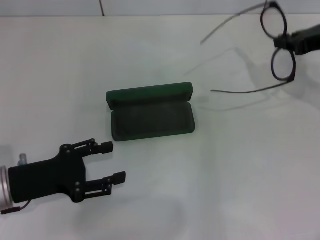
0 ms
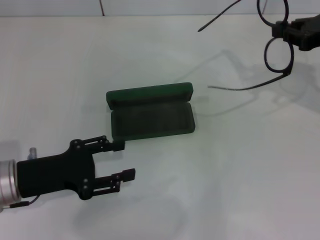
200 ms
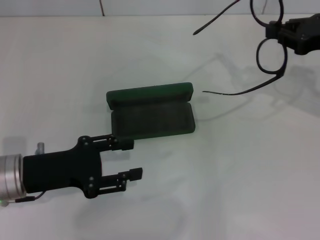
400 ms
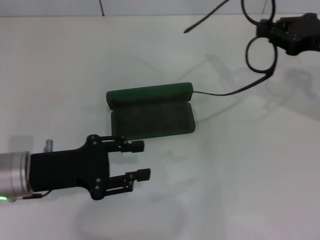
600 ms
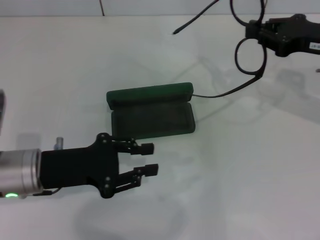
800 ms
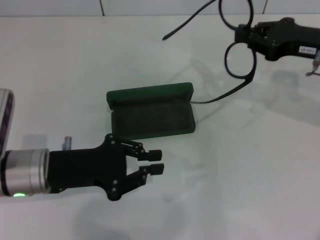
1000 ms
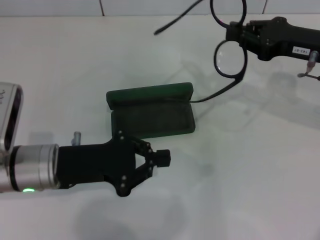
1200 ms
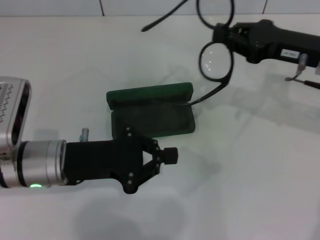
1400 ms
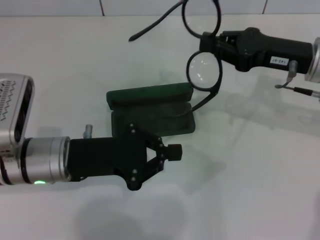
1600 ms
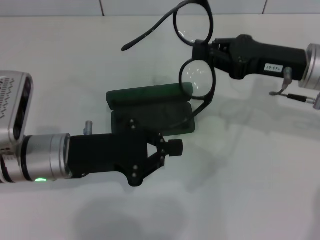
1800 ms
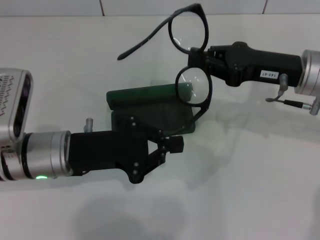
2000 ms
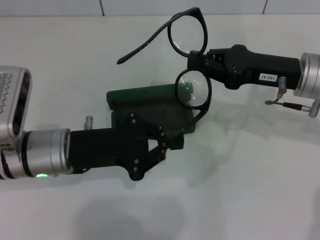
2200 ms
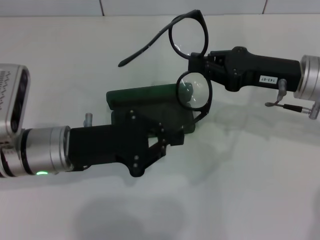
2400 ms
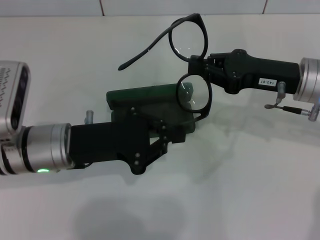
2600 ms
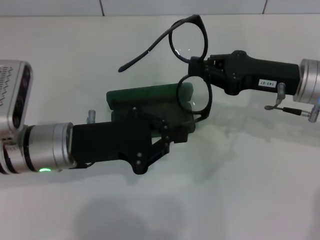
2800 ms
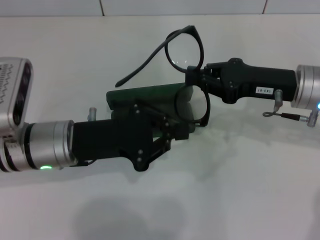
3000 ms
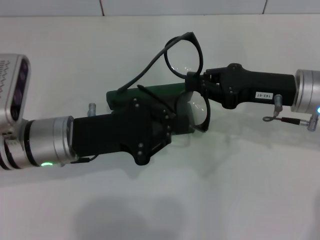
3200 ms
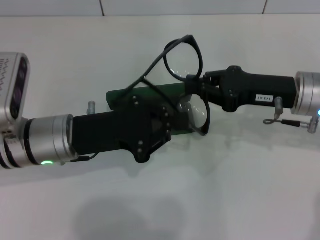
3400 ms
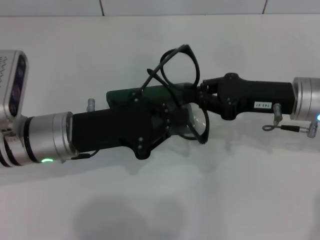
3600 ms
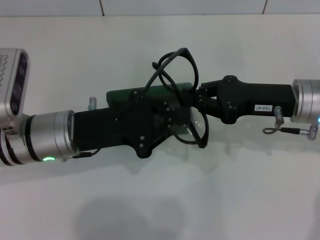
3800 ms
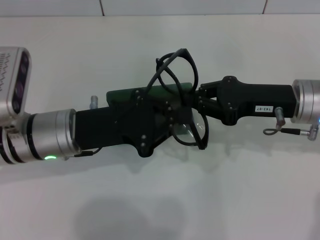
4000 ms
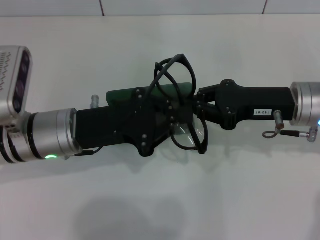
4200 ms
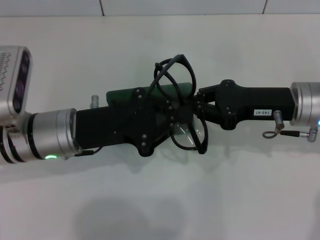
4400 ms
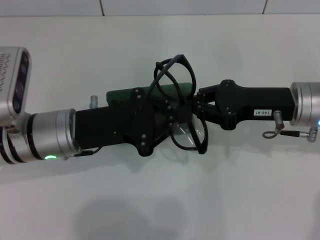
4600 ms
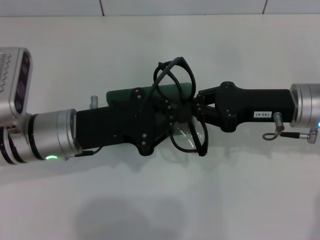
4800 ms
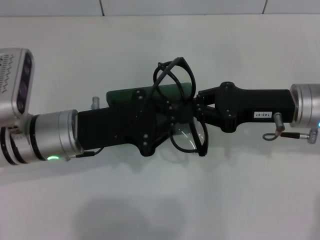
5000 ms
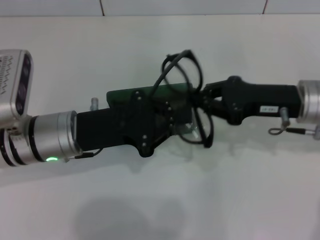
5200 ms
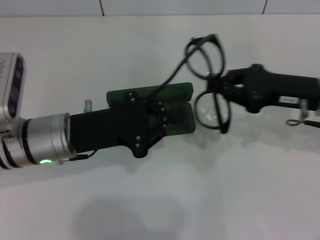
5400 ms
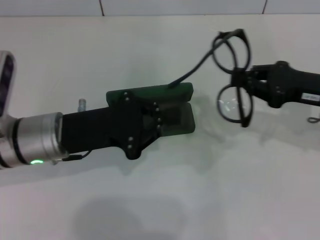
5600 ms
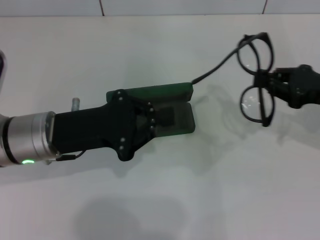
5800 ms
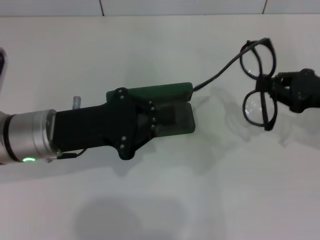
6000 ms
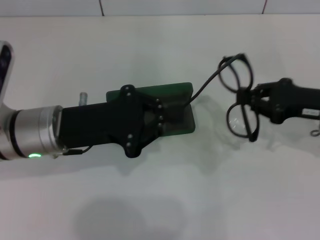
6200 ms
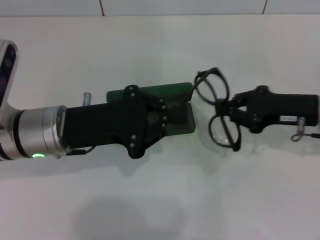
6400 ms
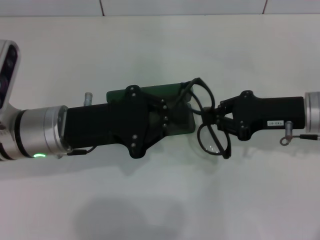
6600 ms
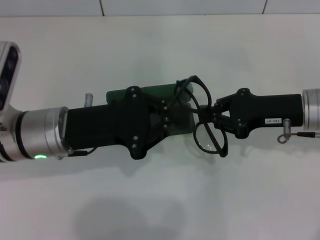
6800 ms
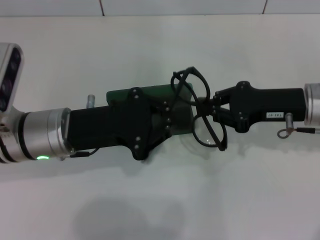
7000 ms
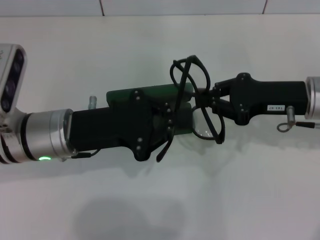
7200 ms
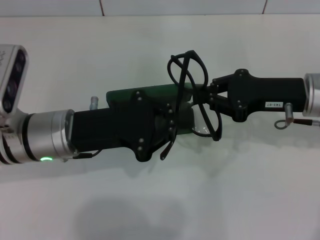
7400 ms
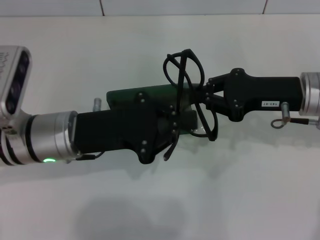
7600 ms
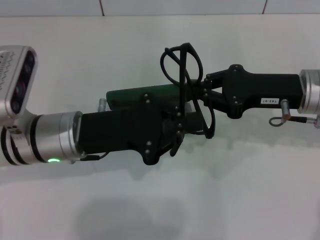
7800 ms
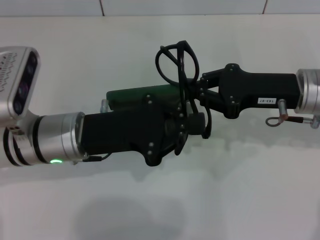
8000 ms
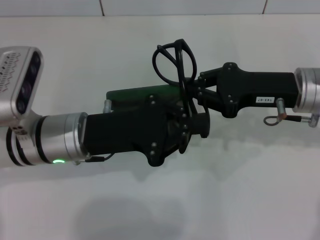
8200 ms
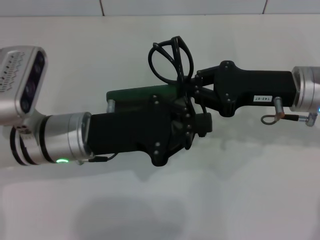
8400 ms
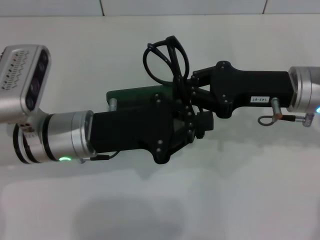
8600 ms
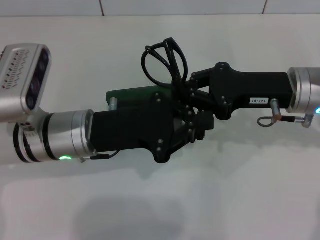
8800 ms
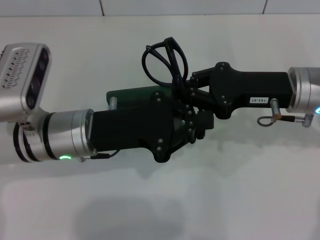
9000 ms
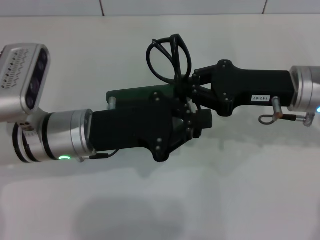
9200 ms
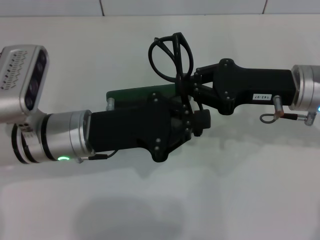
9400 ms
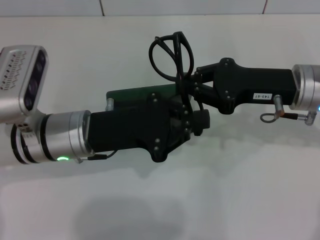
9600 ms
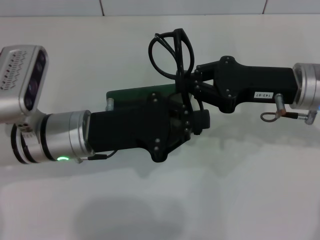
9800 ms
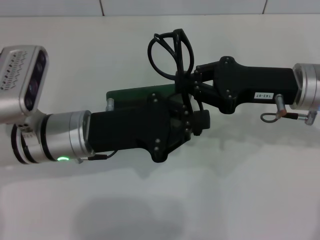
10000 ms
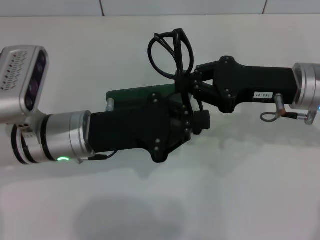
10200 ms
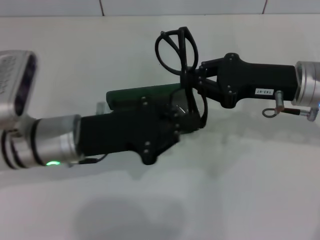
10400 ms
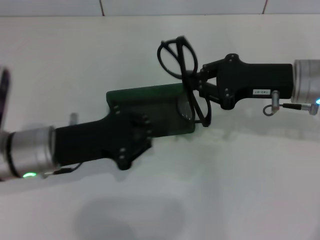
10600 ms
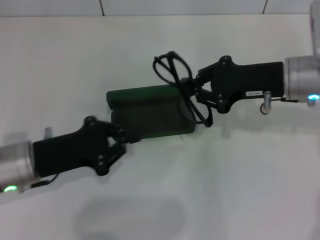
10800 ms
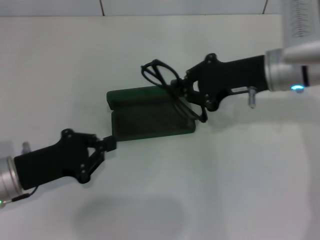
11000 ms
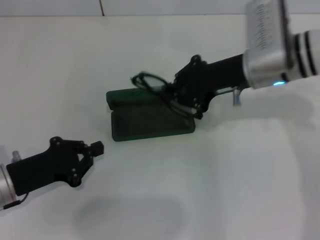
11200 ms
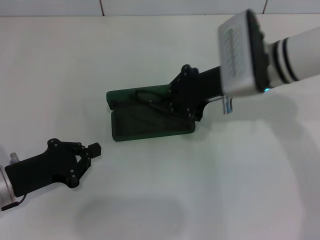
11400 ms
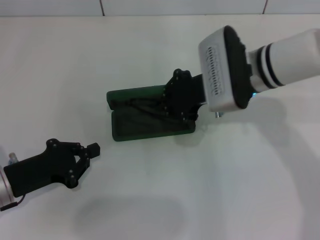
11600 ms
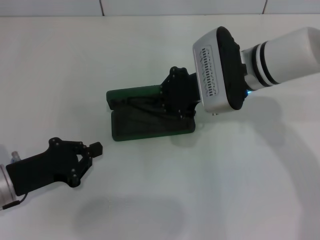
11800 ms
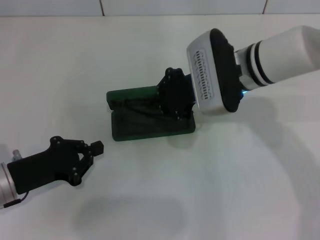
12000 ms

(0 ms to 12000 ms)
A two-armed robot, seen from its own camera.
Step, 0 ms - 9000 ms: Fold the frame with your left hand.
0 ms - 1600 ms: The right gripper heads to the left, covering some 5 cm, while the left gripper heads to the right, covering roughly 10 cm, and closes up.
4400 ms - 6000 ms: The right gripper travels to the right by about 10 cm.
6000 ms - 7600 ms: The right gripper travels to the left by some 10 cm.
7600 ms - 10400 ms: There are only small adjustments of the grippers.
10400 ms - 12000 ms: The left gripper goes roughly 15 cm to the left, downward and backward. Meanwhile the right gripper goes some 10 cm to the left.

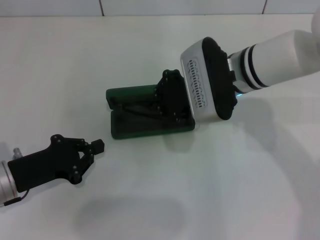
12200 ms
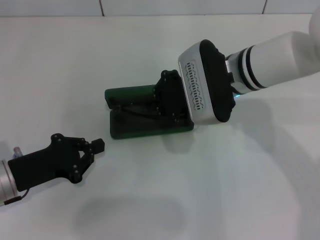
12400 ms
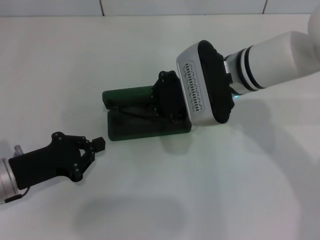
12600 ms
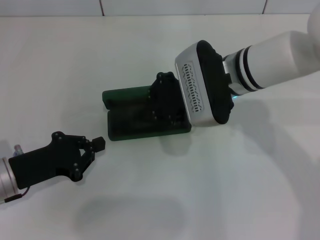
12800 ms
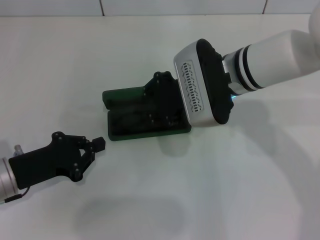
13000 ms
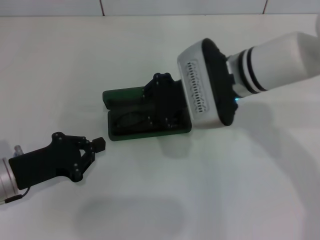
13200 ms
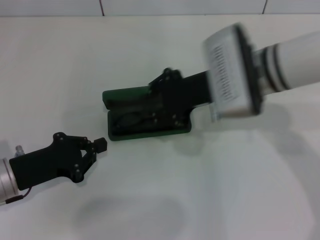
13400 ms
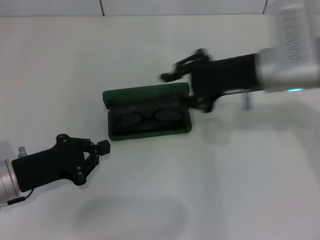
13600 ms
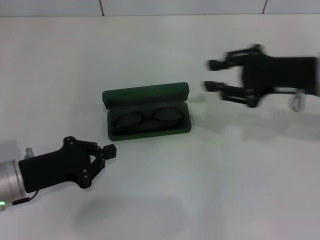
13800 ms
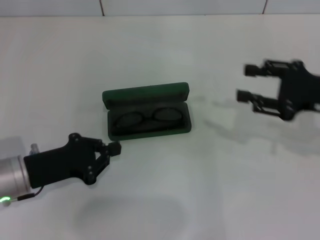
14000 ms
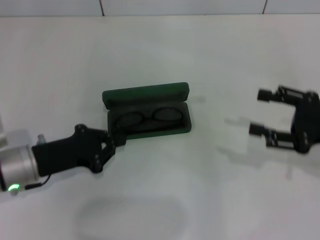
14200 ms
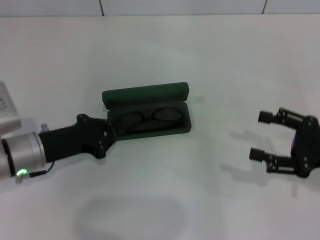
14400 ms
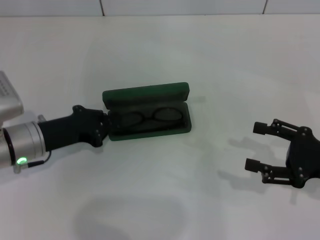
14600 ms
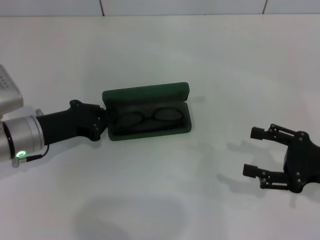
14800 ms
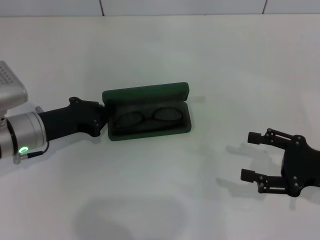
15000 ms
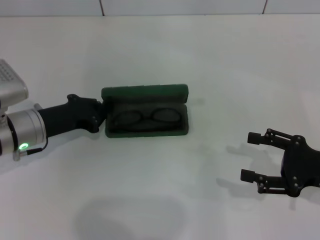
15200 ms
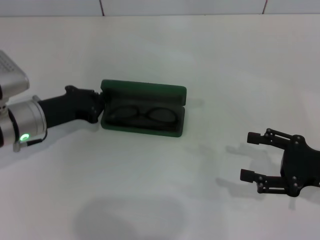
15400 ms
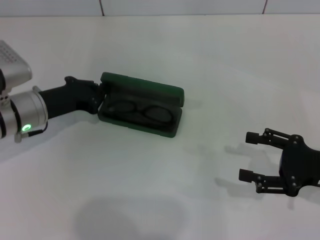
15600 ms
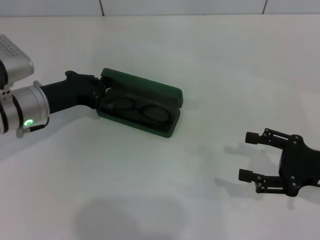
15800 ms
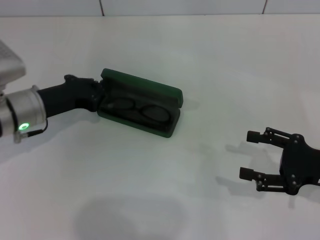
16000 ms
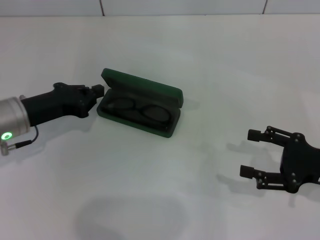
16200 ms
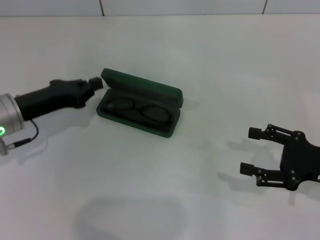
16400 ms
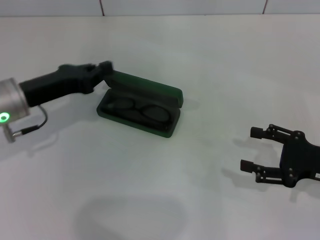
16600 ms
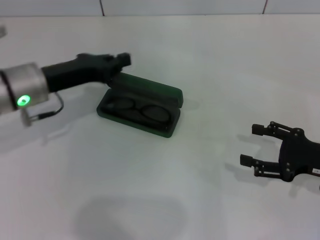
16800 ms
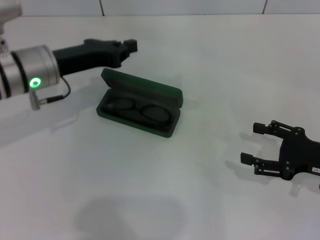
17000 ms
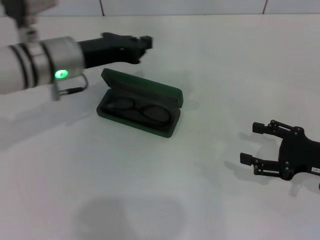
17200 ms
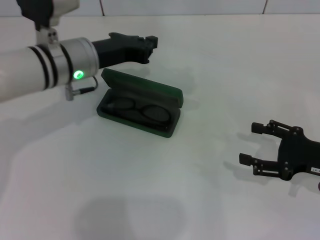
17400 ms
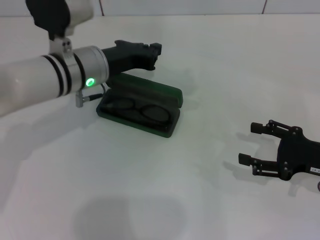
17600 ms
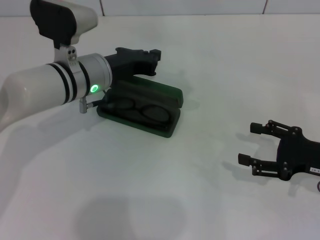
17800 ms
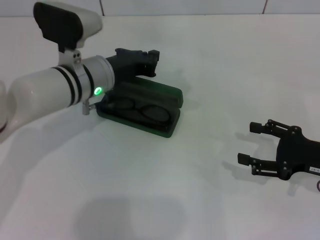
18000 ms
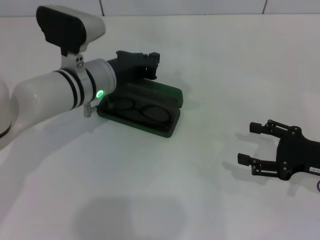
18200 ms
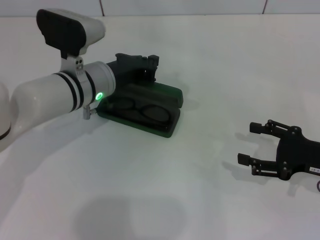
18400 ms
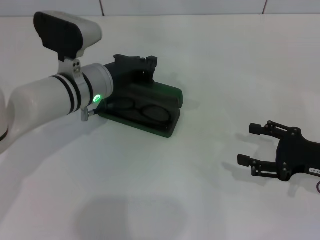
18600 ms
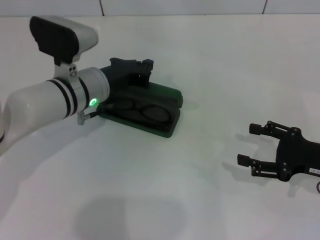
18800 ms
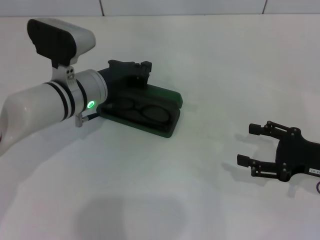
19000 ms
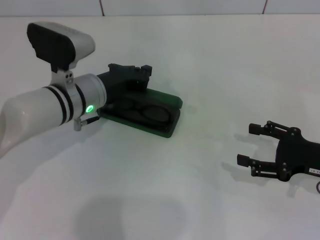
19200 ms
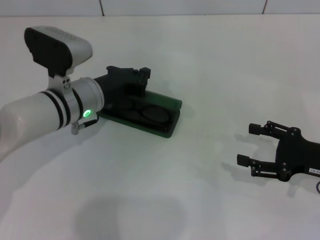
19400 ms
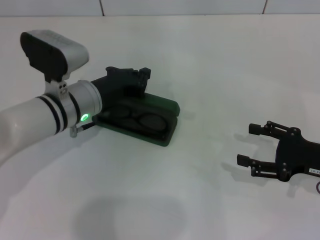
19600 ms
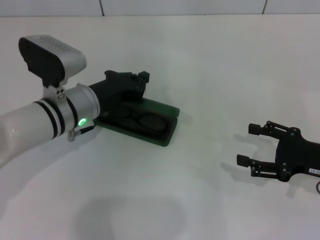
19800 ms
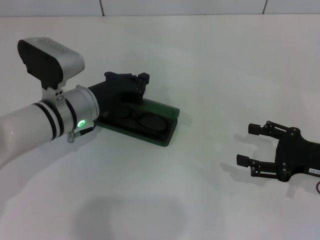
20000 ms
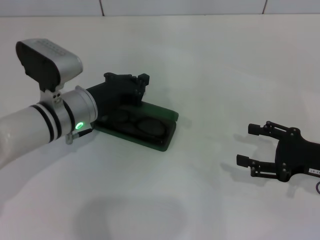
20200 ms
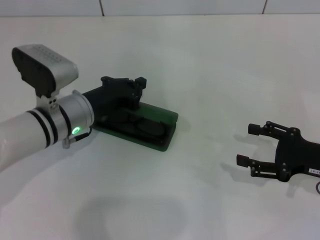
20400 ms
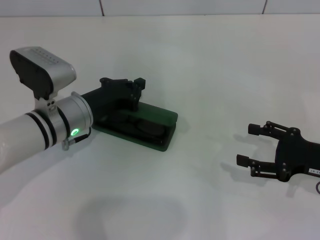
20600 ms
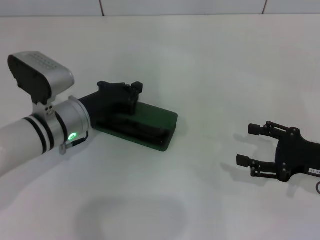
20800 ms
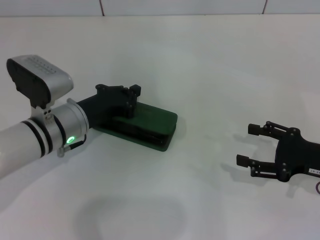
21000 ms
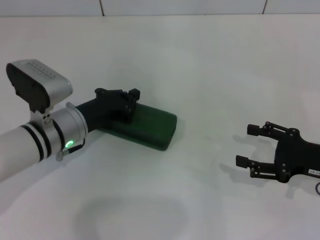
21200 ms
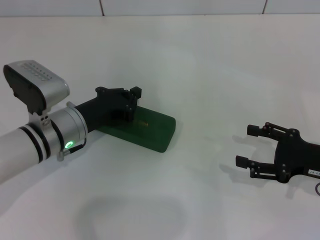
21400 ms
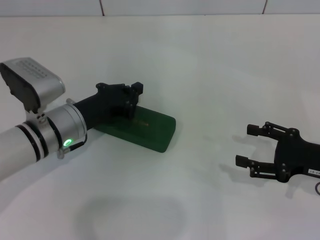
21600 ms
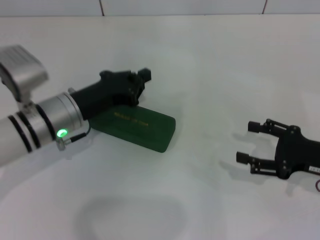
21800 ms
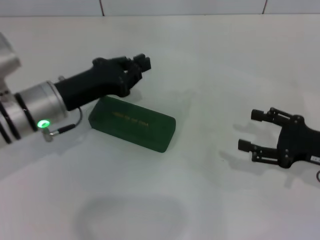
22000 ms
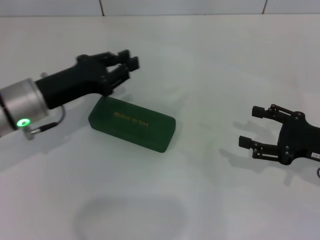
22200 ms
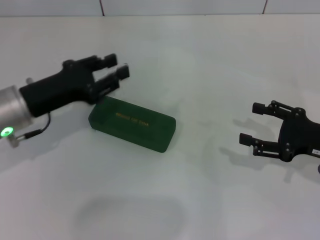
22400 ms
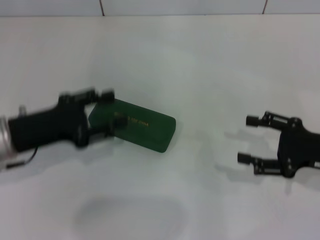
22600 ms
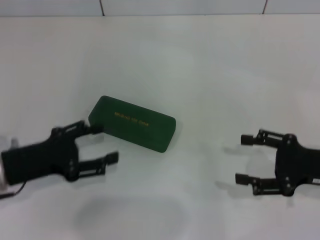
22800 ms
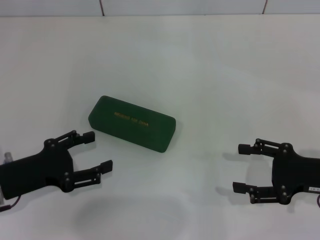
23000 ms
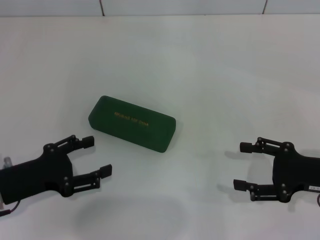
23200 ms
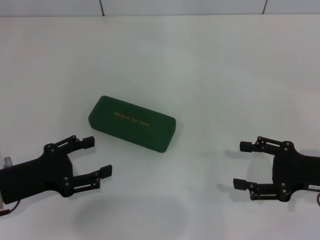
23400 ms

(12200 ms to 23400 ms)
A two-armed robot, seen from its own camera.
Step, 13200 ms - 21200 ms: Close the glasses case with your left hand.
12200 ms - 13800 ms: The right gripper travels to the right by some 15 cm.
13800 ms - 15400 ms: The right gripper goes some 15 cm backward, downward and to the right, and opens up, while the left gripper shifts some 10 cm forward.
15400 ms - 17000 ms: The left gripper travels upward by about 10 cm.
17000 ms - 18600 ms: The left gripper goes roughly 5 cm to the right.
18600 ms - 20200 ms: The grippers stay close to where they were, moving slightly.
20200 ms - 21800 ms: There are only small adjustments of the grippers.
21800 ms - 23400 ms: The left gripper is displaced backward and to the left by about 15 cm, and opens its fingers.
